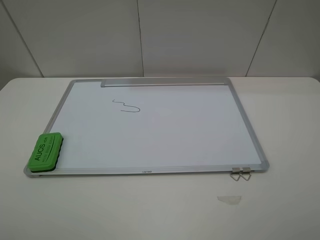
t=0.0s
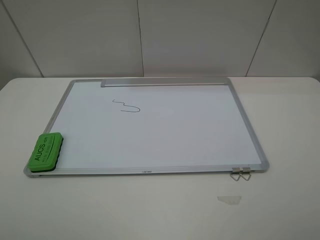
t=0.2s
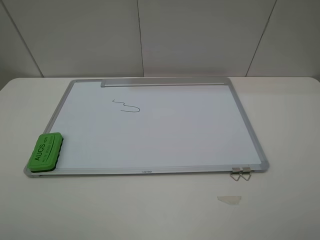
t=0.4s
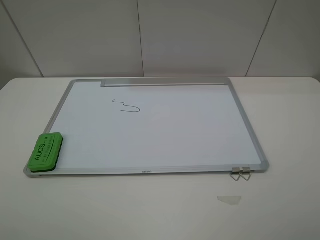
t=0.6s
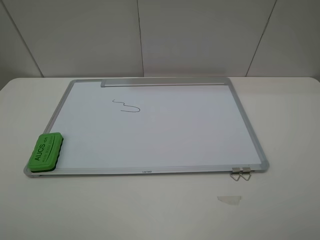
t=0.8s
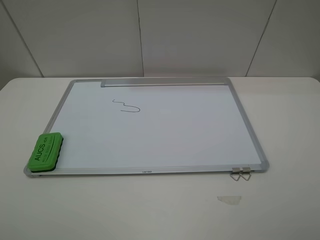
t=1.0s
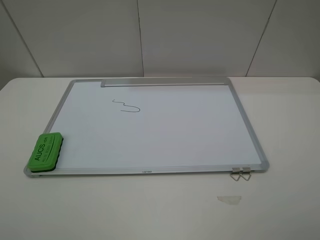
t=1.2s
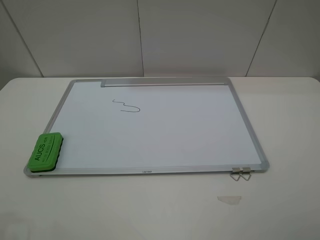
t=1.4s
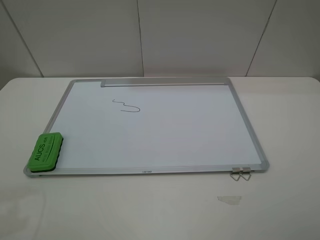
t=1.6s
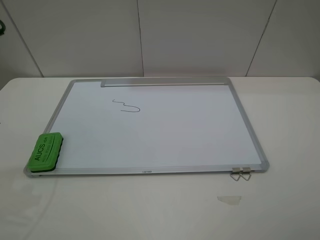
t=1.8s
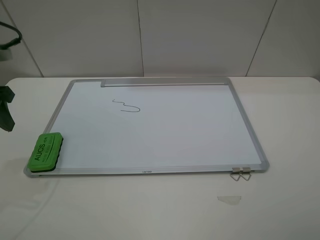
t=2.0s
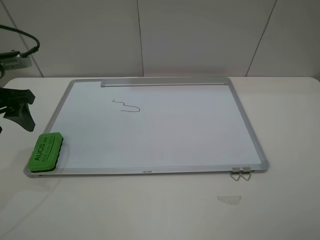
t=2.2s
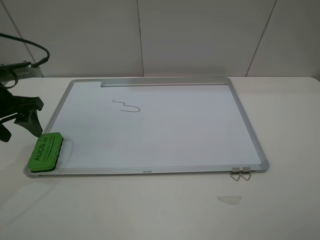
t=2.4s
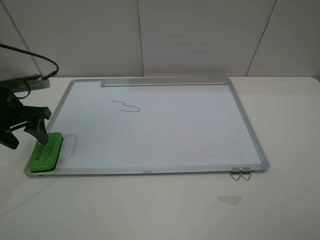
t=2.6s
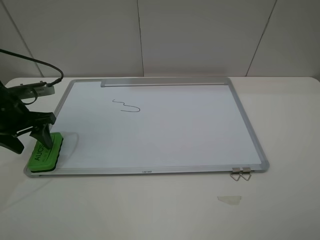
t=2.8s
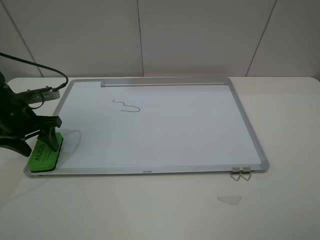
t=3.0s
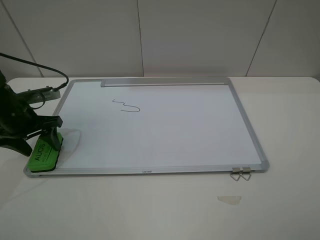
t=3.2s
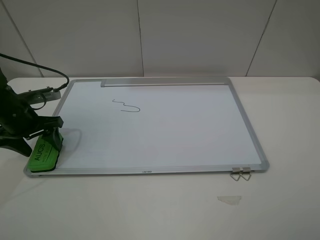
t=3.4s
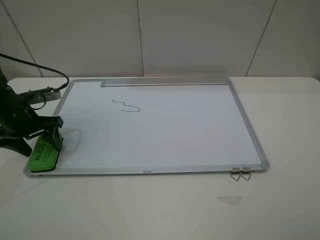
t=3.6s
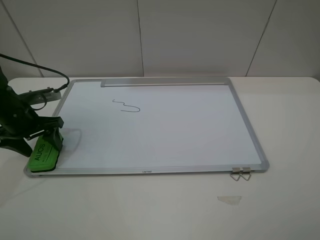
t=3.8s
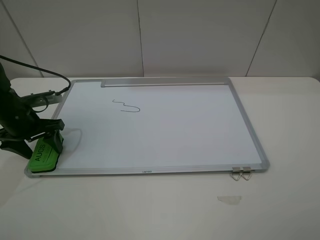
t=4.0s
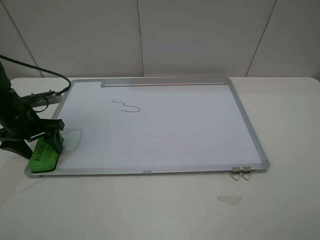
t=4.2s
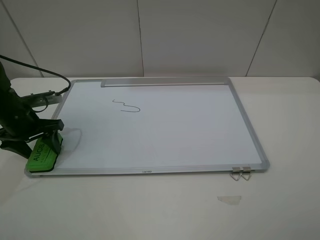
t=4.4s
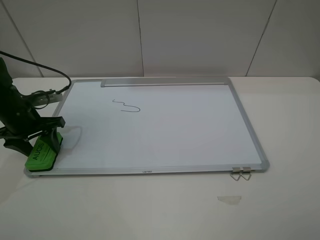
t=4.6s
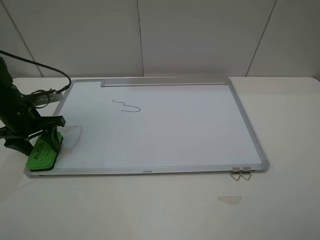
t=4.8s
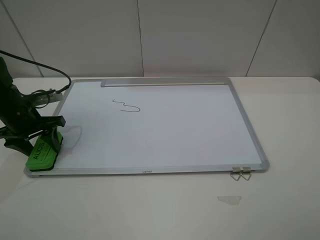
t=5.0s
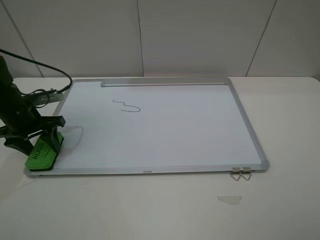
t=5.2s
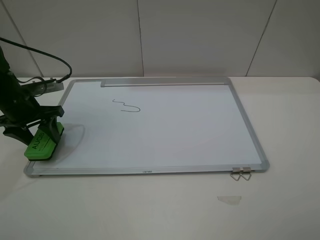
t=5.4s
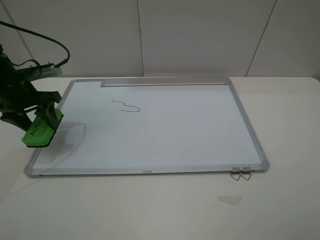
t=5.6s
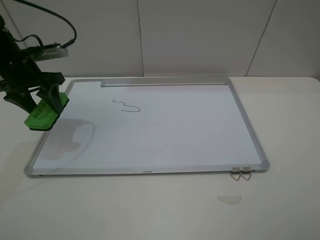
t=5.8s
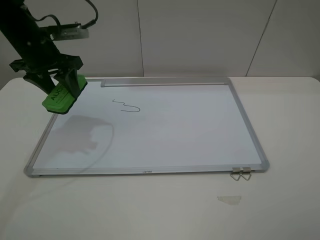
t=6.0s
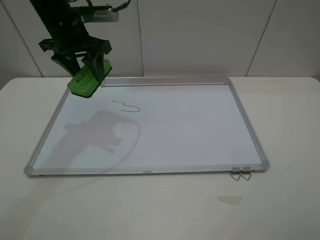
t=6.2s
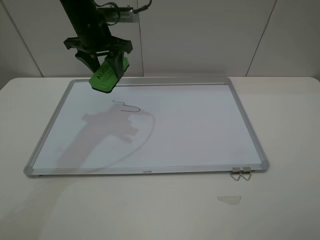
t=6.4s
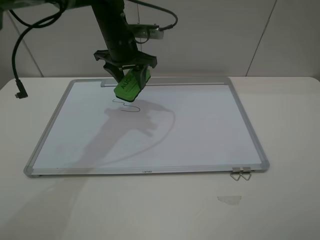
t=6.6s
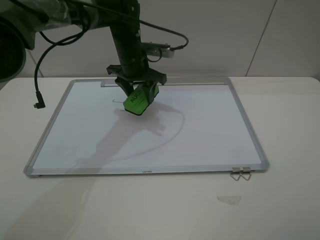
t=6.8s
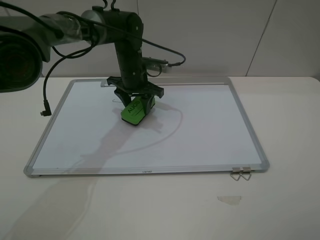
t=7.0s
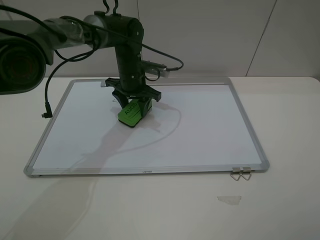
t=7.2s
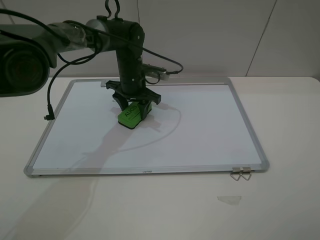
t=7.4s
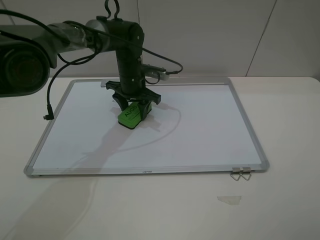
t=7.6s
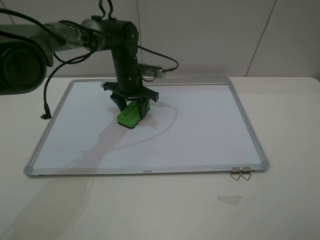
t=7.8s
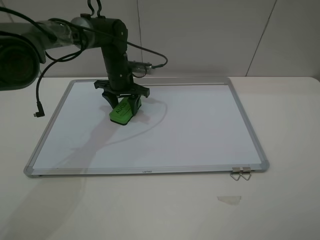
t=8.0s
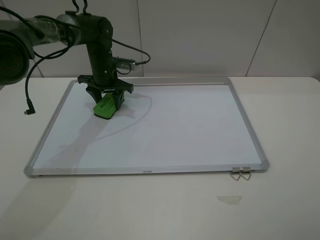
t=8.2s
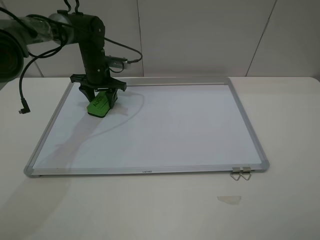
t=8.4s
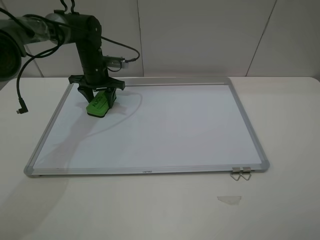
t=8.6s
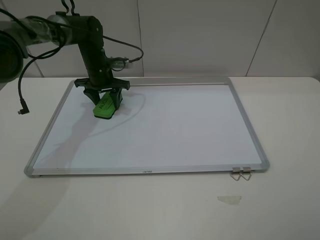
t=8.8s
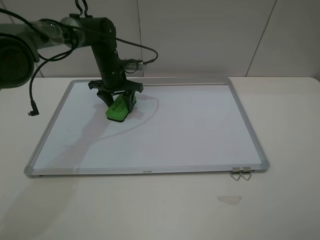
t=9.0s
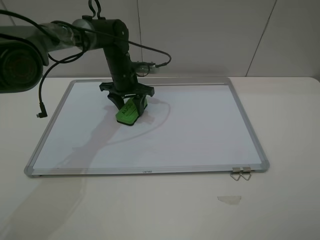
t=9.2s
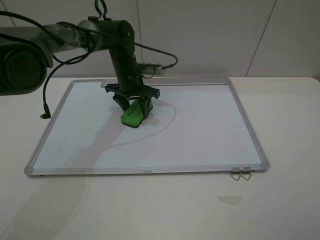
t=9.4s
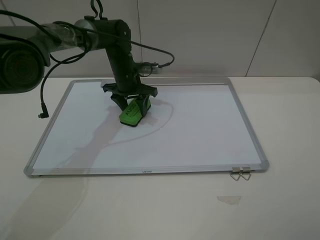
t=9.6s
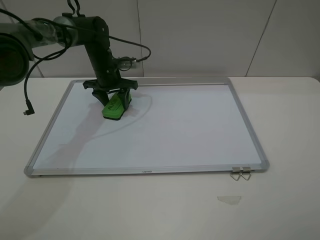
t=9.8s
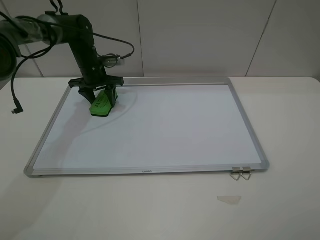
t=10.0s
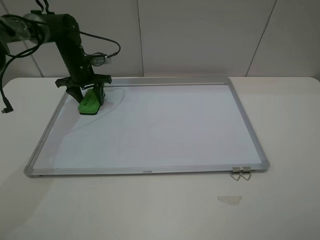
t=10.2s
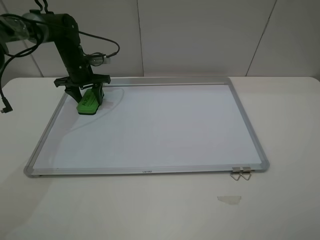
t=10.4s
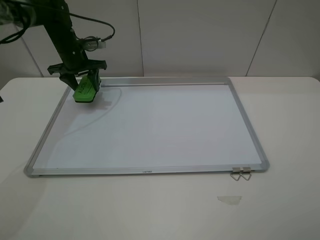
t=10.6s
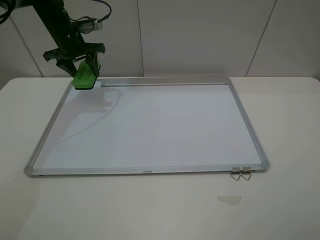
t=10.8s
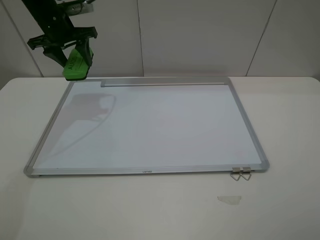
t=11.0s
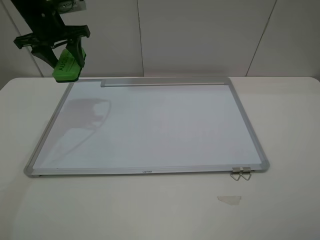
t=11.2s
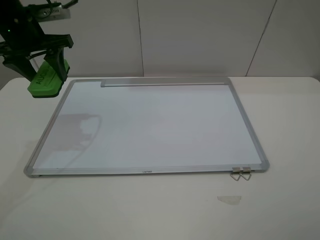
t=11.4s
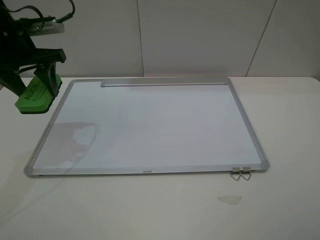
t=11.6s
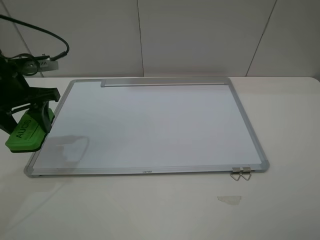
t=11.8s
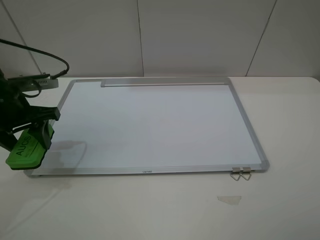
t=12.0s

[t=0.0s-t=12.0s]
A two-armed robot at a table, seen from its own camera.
Step, t=0.0s to t=5.0s: Grasp the eraser with the left gripper.
Step, t=5.2s to t=10.4s: Grasp the eraser and wipe the blackboard with the left gripper.
t=1.6s to t=3.0s: The left gripper goes approximately 20 cm downward and forward.
t=3.0s to t=4.4s: The left gripper opens and closes again.
t=4.4s to t=6.0s: The left gripper is displaced upward, to the right and forward by some 15 cm, and closes.
t=6.0s to t=7.6s: The left gripper goes approximately 20 cm to the right, downward and forward.
t=7.6s to t=9.0s: The left gripper heads to the left, covering roughly 5 cm.
t=9.0s to t=10.4s: The left gripper heads to the left, covering approximately 10 cm.
t=10.4s to t=12.0s: The left gripper goes some 25 cm backward.

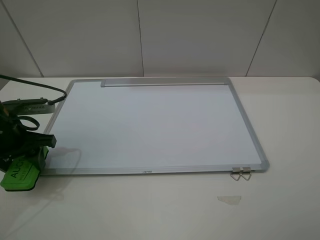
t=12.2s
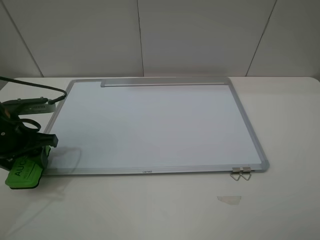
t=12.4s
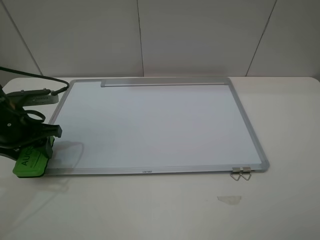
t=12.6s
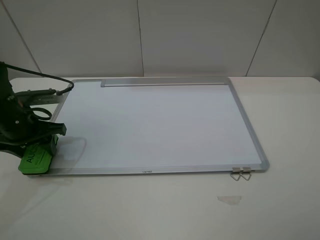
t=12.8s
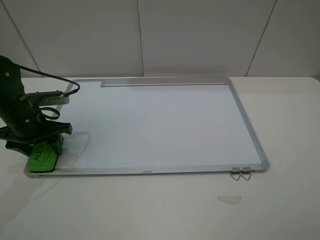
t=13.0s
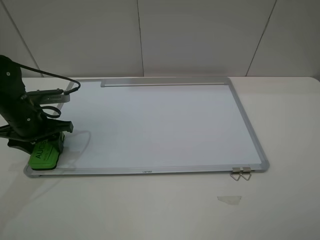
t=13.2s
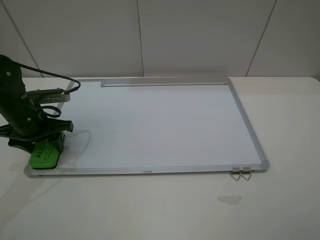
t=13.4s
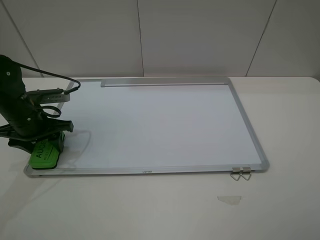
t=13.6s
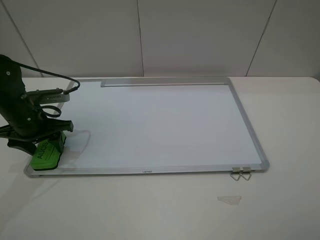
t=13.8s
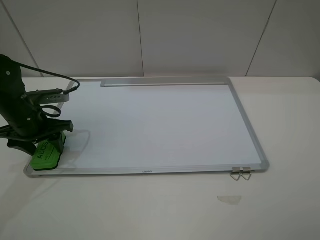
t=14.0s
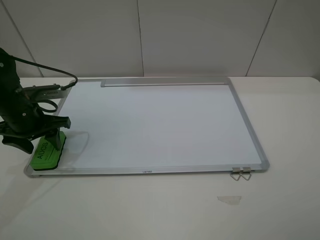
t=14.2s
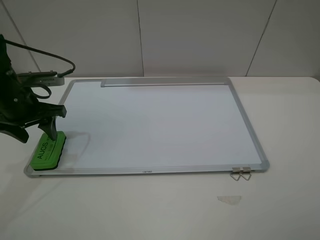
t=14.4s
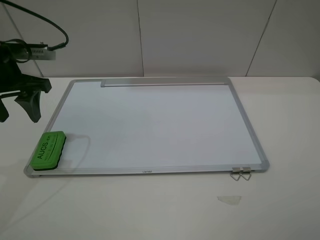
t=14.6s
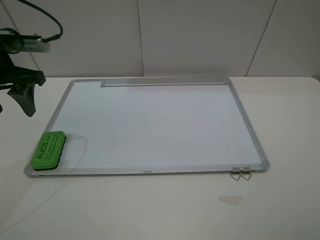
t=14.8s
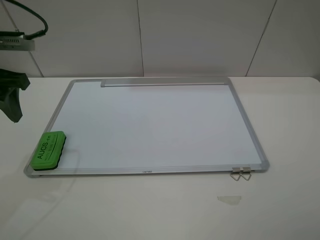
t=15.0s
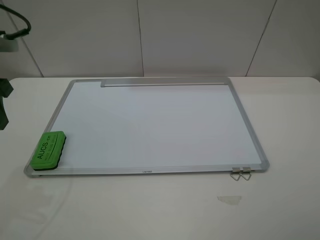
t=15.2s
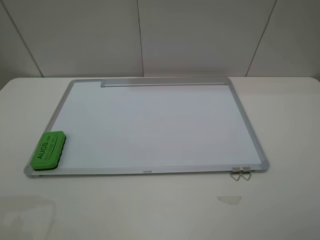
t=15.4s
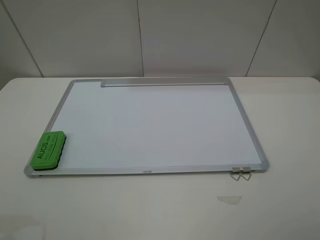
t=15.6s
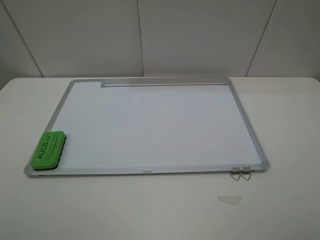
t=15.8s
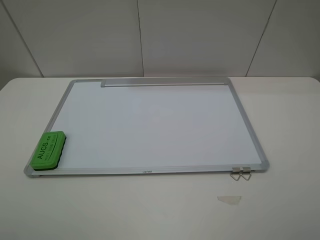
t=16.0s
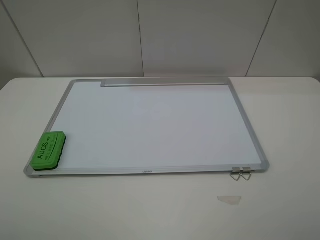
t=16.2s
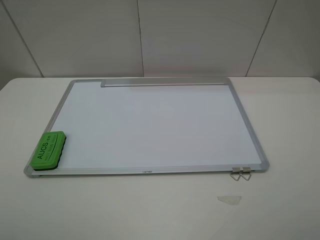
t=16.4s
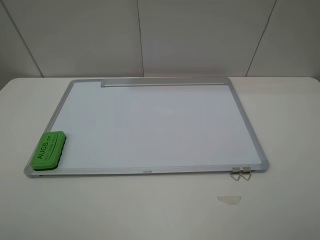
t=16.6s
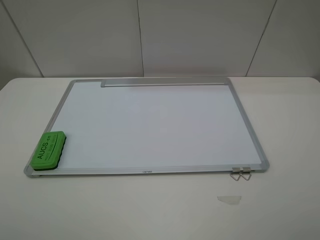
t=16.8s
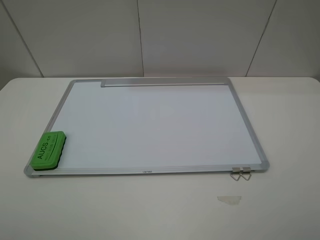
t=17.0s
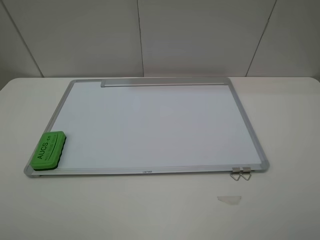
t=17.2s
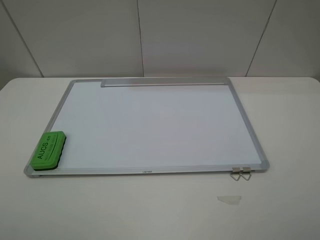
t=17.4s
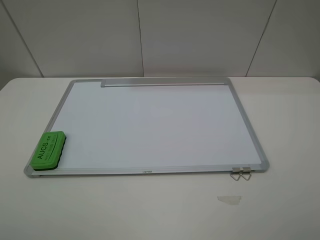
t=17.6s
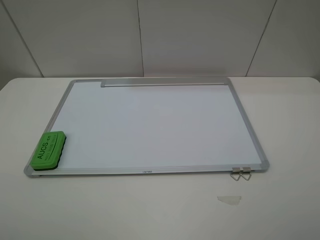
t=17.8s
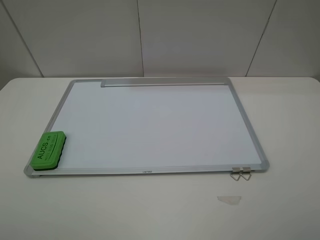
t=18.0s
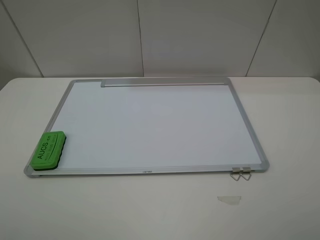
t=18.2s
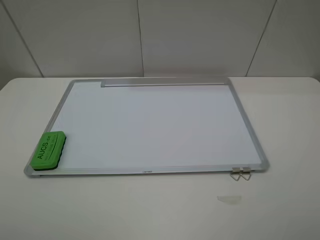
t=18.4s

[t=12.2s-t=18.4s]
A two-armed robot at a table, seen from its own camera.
Step, t=12.2s to t=14.2s: Place the eraser with the left gripper.
t=12.2s to t=13.8s: The left gripper travels forward by roughly 5 cm.
t=13.8s to t=15.4s: The left gripper travels upward and backward by roughly 25 cm.
